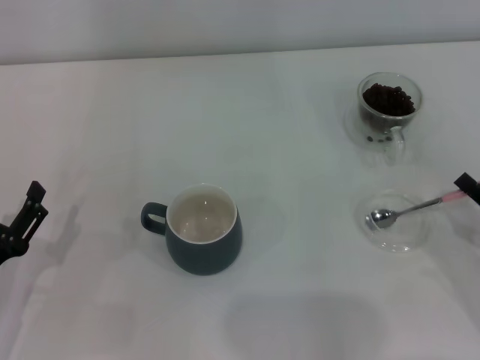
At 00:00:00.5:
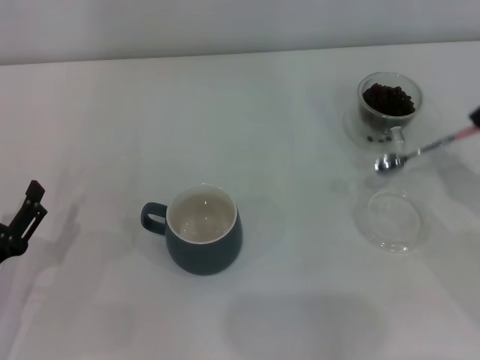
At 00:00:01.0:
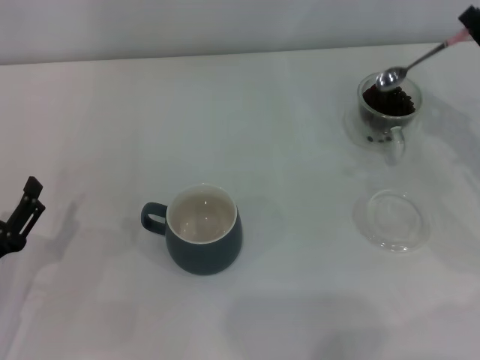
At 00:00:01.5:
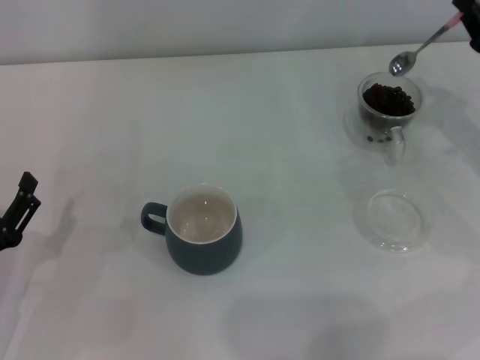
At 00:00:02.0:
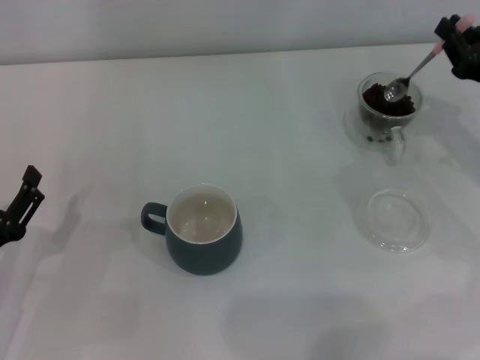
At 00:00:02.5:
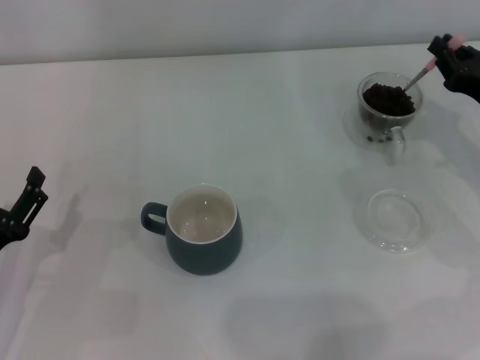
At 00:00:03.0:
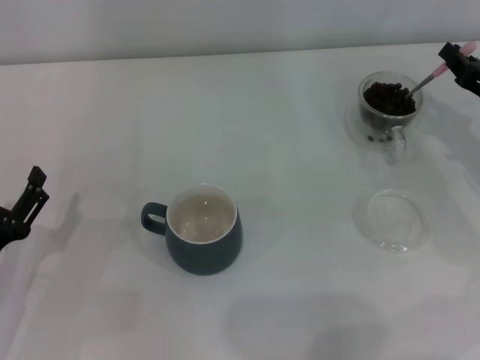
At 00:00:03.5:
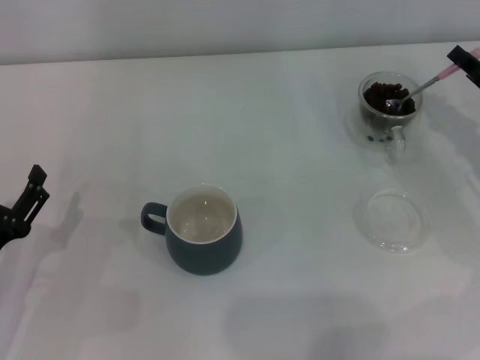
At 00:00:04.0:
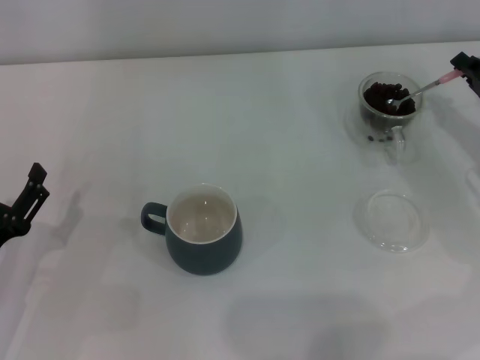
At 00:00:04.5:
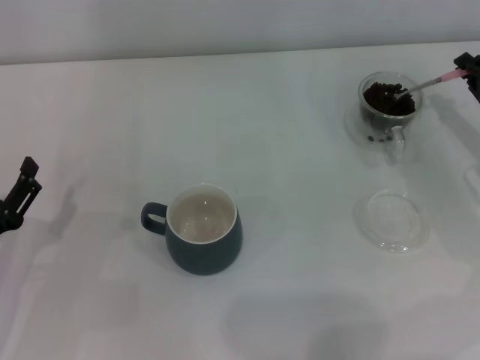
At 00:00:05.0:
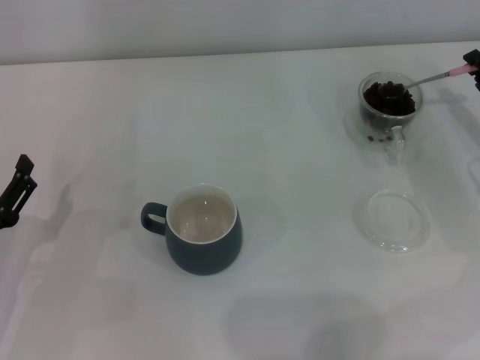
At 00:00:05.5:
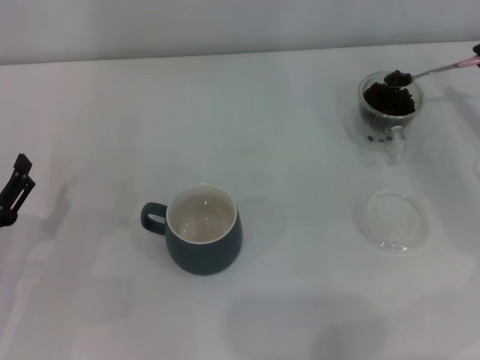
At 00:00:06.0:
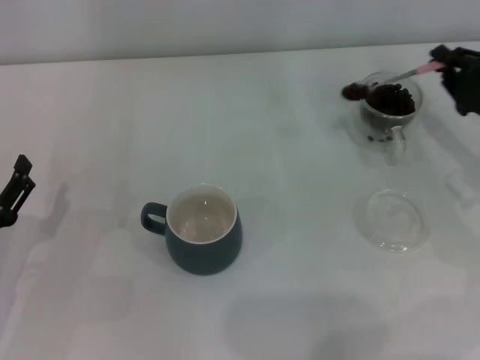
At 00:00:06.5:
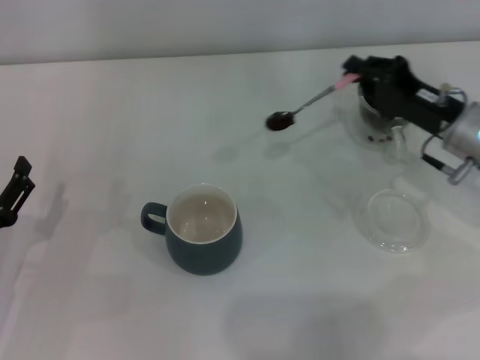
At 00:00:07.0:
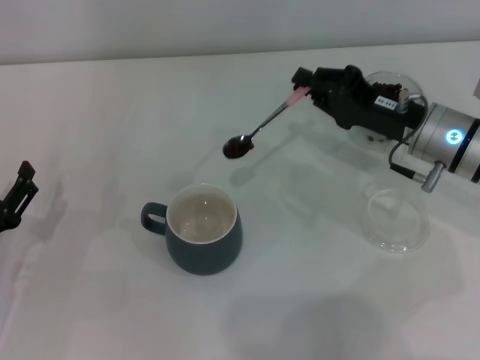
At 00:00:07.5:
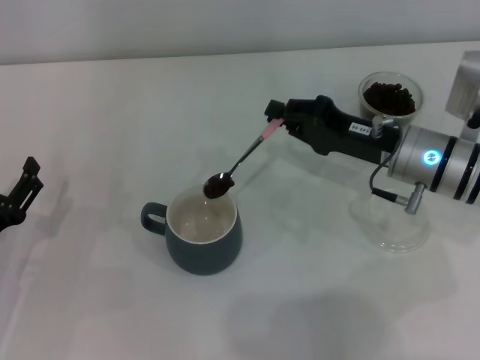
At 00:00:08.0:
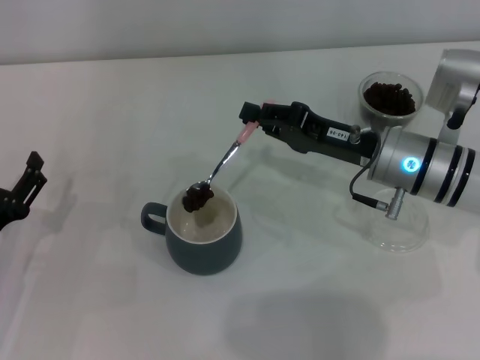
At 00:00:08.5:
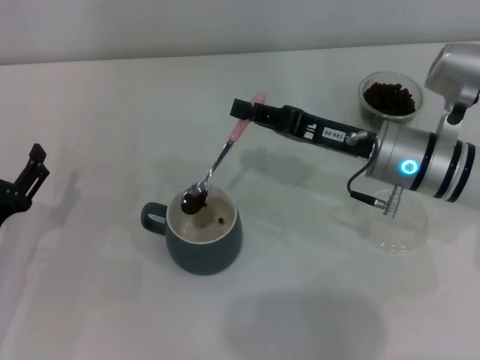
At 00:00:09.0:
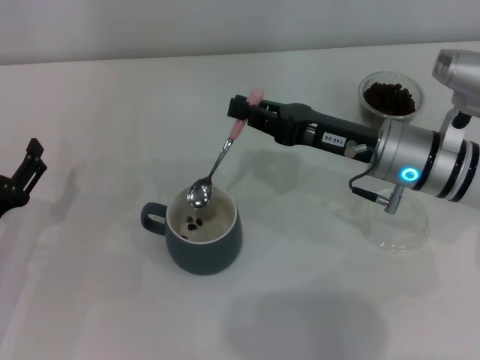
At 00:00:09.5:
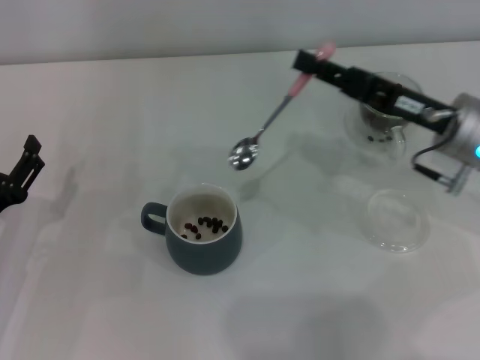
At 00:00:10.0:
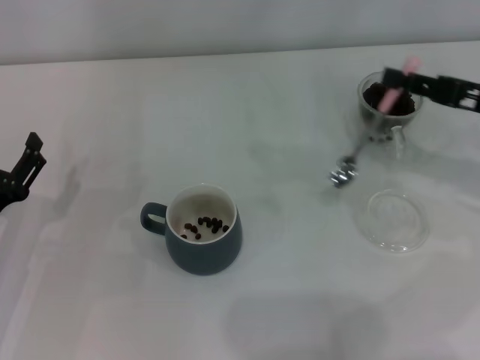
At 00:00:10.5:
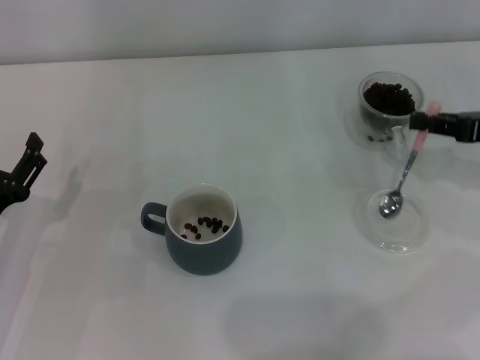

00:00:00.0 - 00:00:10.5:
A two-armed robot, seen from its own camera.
Task of the whole recording: Use a pink spoon to take out the coffee beans from the glass and pour them into the gray cup.
Step, 00:00:00.5 - 00:00:09.0: Scoop a spoonful of beans into the cup with the right gripper.
00:00:00.0 - 00:00:02.0: The right gripper is displaced forward and upward by approximately 15 cm.
00:00:04.0 - 00:00:06.5: The right gripper goes some 10 cm to the left.
00:00:06.5 - 00:00:08.5: The right gripper heads to the left, covering some 10 cm.
00:00:08.5 - 00:00:10.5: The right gripper is displaced to the right by roughly 20 cm.

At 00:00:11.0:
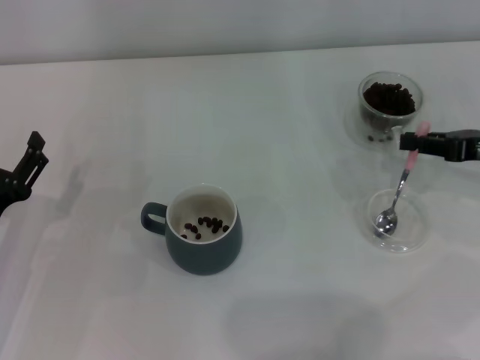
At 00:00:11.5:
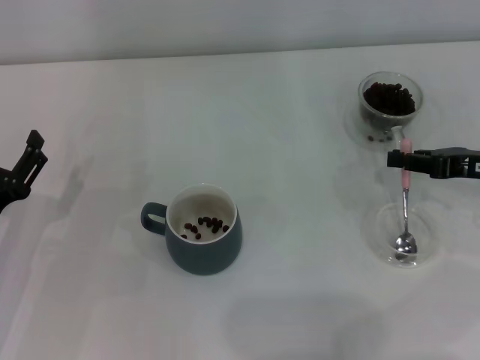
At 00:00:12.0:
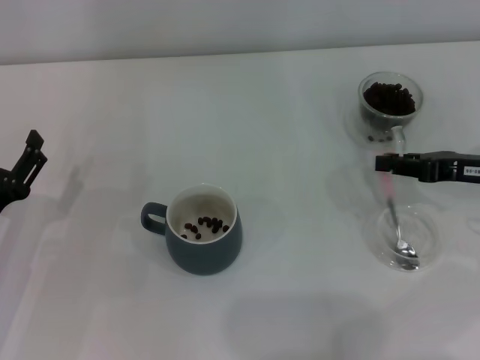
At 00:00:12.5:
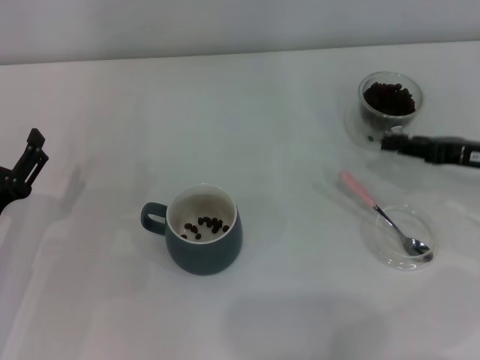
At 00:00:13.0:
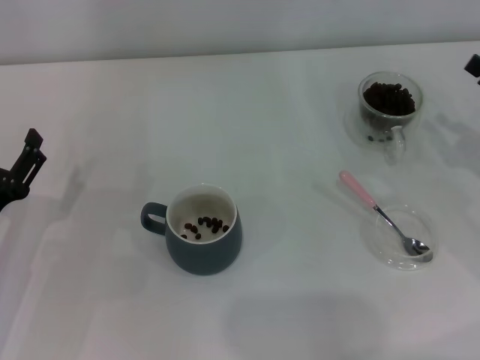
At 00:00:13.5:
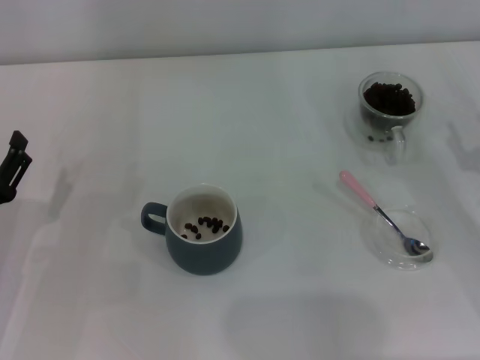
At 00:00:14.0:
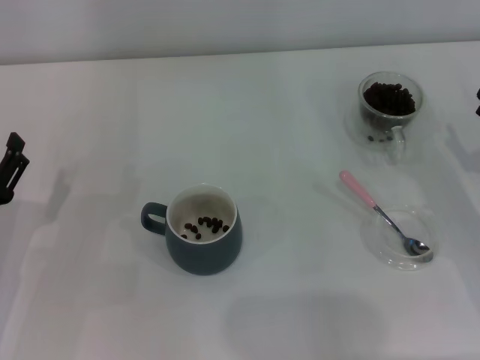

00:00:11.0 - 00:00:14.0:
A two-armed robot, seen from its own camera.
Task of the whole recording: Use a pink spoon to take out the coffee beans from the glass and pour them into the gray cup.
00:00:11.0 - 00:00:12.5: The grippers stay close to where they were, moving slightly.
00:00:12.5 - 00:00:14.0: The right gripper travels backward by some 5 cm, and opens.
